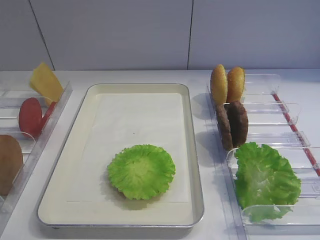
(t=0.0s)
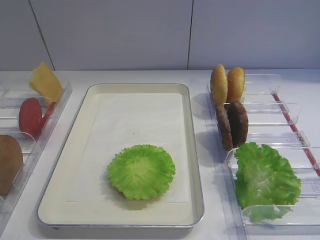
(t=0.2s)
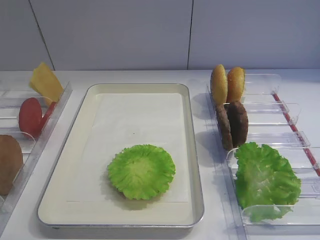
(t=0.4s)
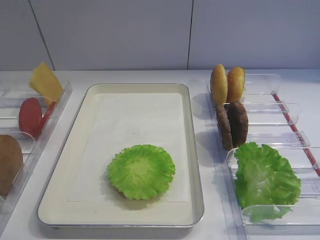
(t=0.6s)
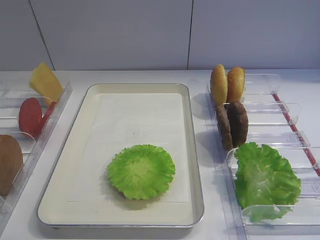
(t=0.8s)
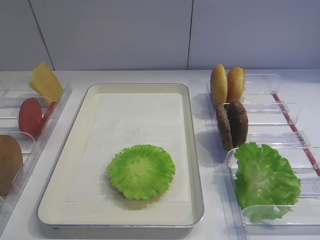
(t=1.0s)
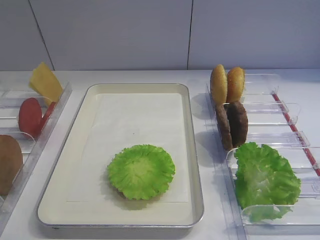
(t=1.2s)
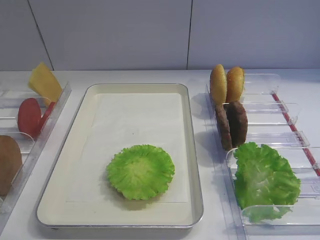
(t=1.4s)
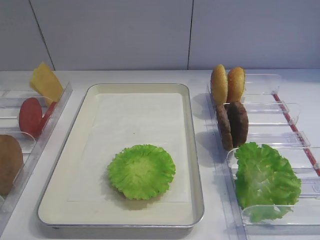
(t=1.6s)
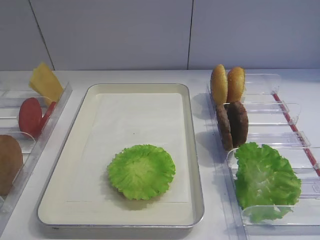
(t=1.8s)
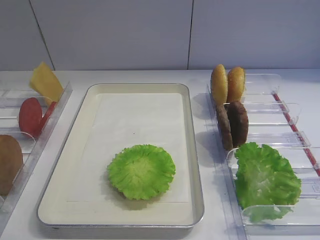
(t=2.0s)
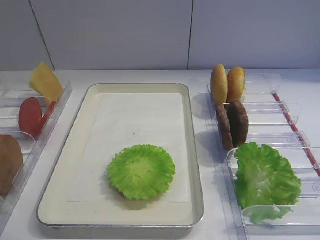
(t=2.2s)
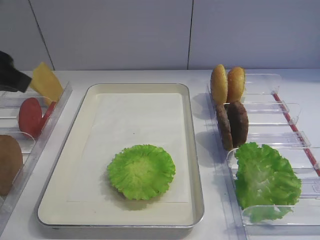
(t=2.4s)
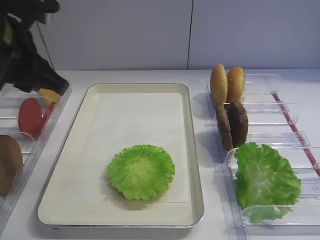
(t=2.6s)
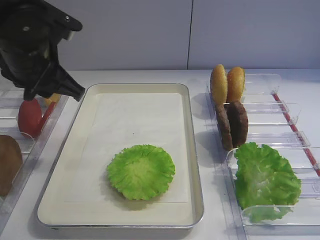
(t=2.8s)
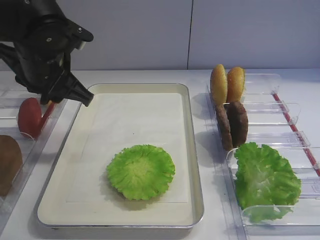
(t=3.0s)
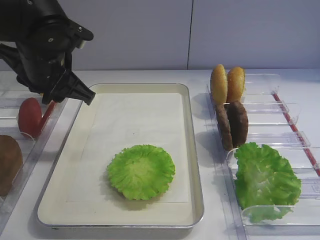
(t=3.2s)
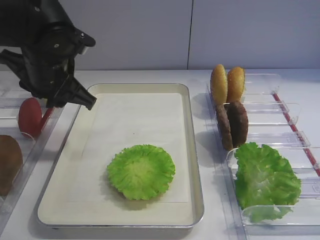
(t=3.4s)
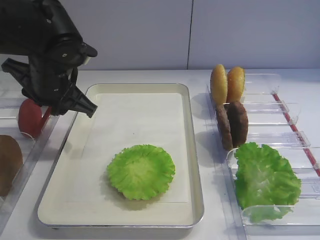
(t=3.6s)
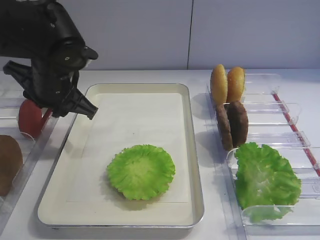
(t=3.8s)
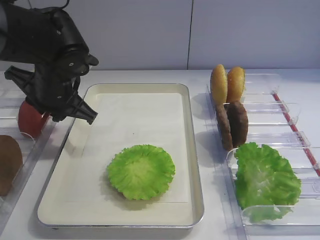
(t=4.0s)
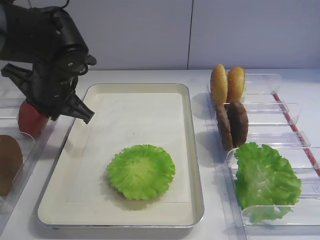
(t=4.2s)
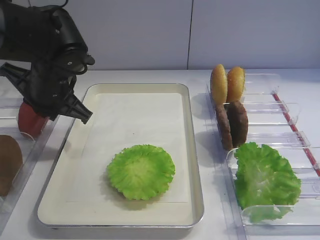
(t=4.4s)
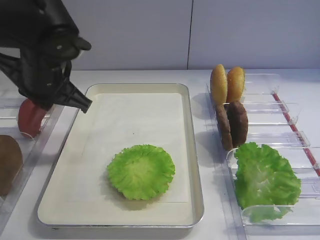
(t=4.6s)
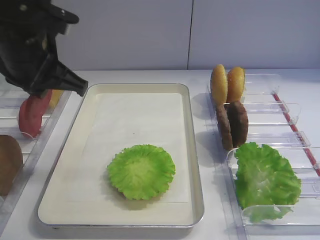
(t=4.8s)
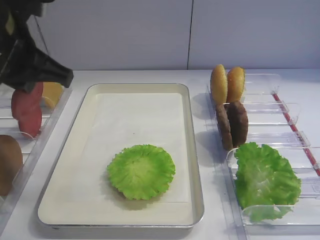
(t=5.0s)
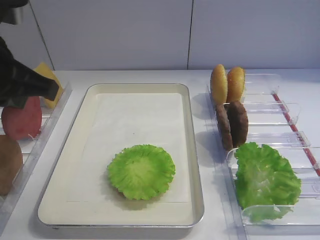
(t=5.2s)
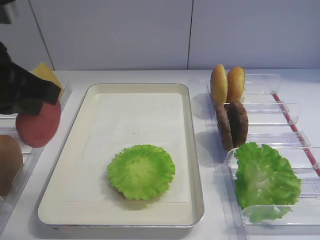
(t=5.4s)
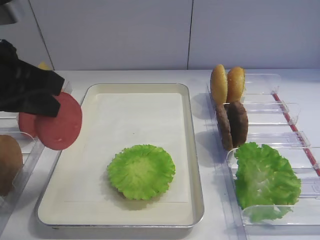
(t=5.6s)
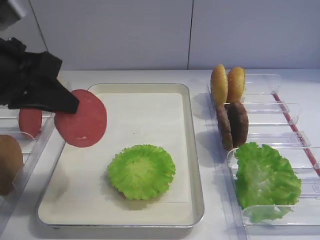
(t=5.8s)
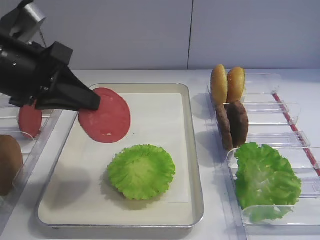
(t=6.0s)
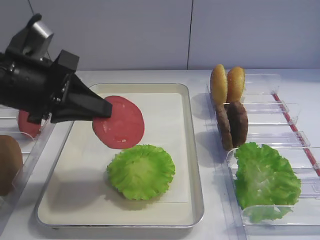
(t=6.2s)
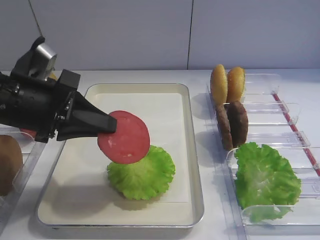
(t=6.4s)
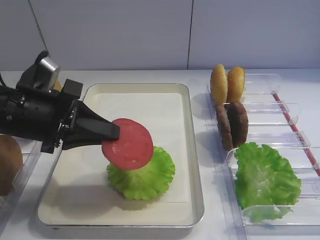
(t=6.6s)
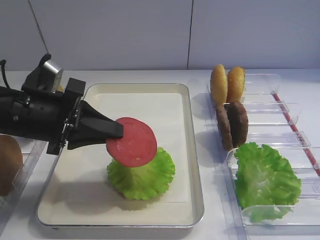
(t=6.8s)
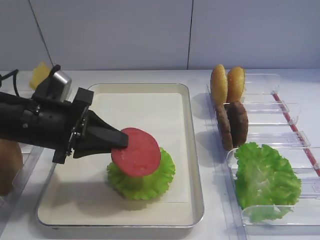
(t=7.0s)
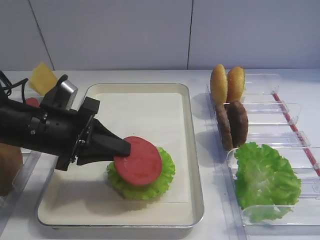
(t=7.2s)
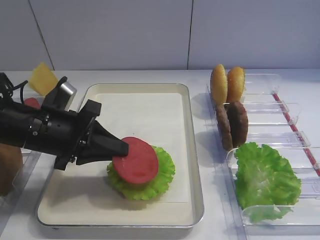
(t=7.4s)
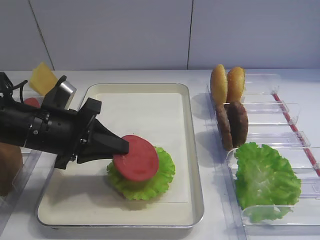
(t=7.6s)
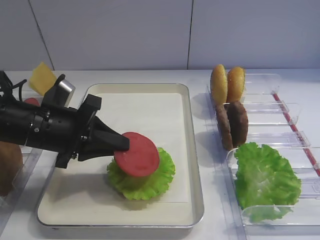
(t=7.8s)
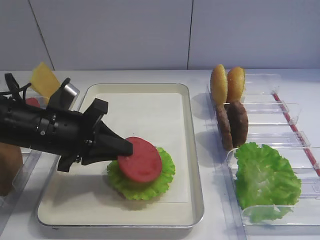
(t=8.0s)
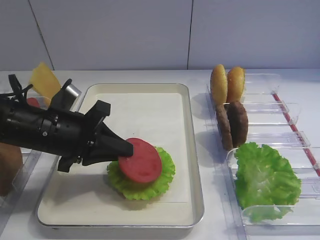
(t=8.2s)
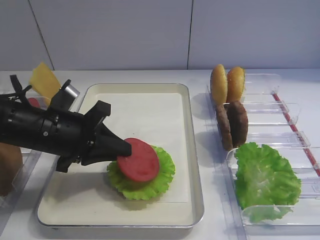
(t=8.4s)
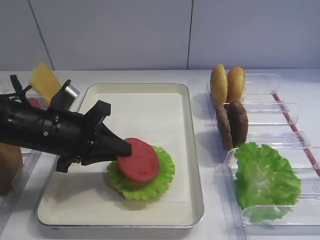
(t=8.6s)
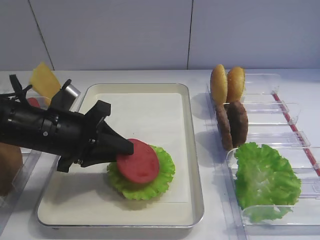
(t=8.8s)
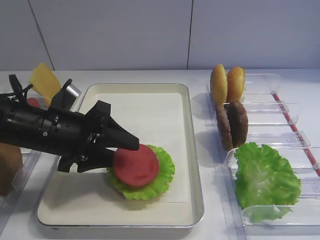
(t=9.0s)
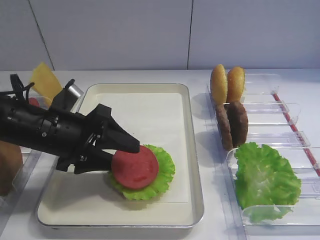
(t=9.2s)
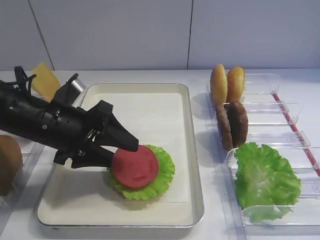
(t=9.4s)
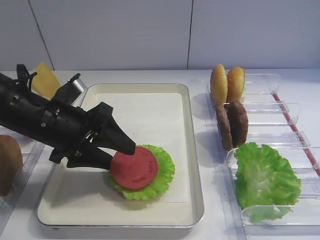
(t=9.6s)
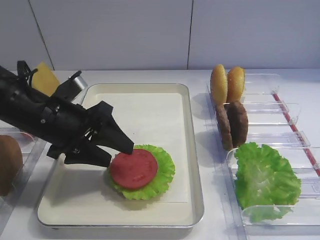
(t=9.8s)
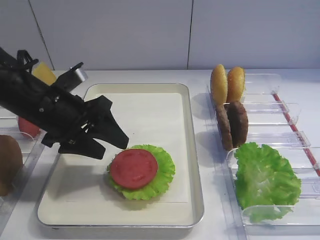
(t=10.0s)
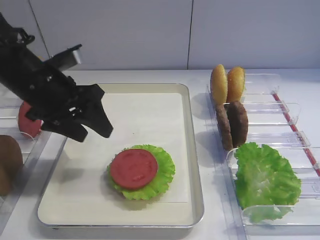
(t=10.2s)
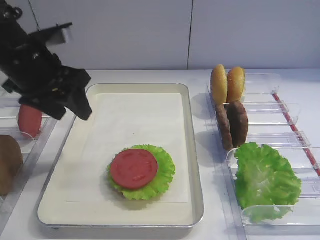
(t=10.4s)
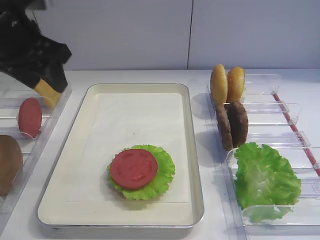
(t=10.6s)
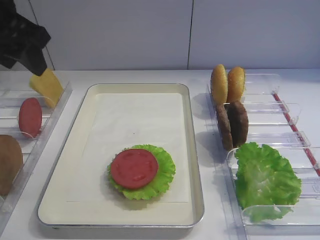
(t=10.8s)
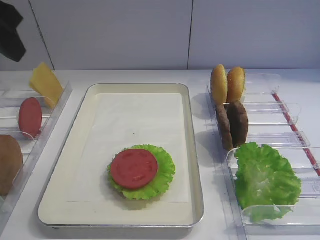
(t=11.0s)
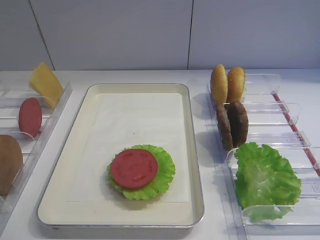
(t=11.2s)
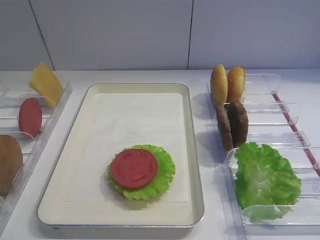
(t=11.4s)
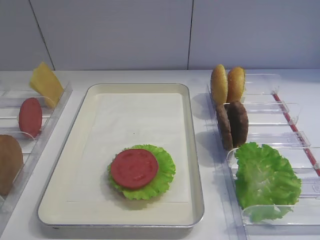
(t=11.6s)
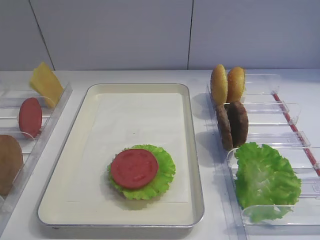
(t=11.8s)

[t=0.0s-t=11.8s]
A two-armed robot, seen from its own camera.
Step, t=0.0s to t=4.6s: Pick up the tomato slice with the left gripper.
Step, t=5.0s to t=10.0s: Place the tomato slice on the lettuce leaf with the left gripper.
t=1.4s to t=3.0s: The left gripper is displaced forward by approximately 35 cm.
t=3.0s to t=4.4s: The left gripper closes up.
t=4.4s to t=6.0s: The left gripper is displaced backward and upward by approximately 10 cm.
t=6.0s to t=7.4s: The left gripper shifts approximately 10 cm downward.
t=7.4s to t=8.8s: The grippers make only small movements.
t=8.8s to t=10.4s: The left gripper shifts some 10 cm upward and forward, and opens its fingers.
t=10.4s to t=11.8s: The left gripper shifts about 25 cm backward.

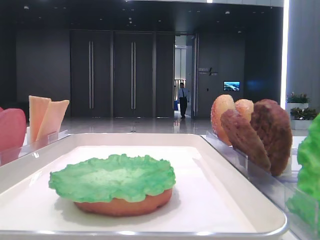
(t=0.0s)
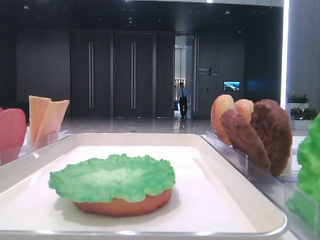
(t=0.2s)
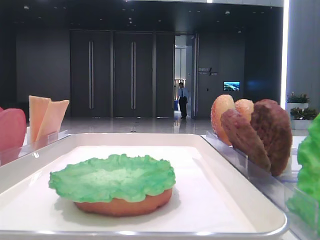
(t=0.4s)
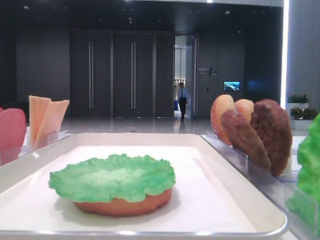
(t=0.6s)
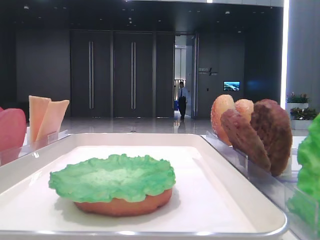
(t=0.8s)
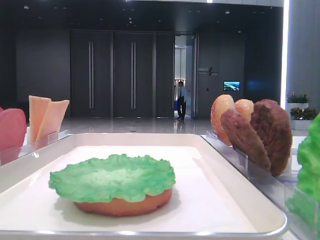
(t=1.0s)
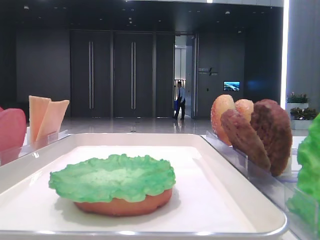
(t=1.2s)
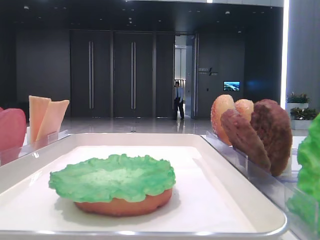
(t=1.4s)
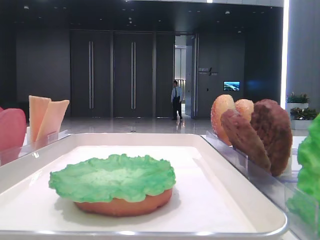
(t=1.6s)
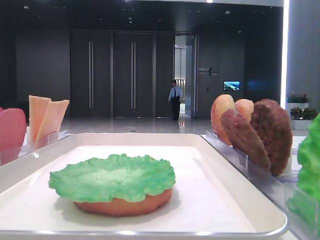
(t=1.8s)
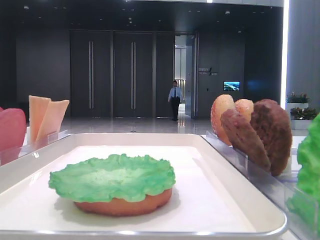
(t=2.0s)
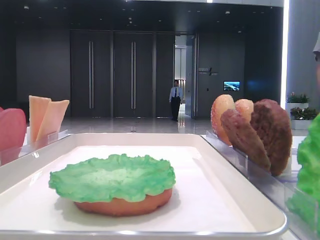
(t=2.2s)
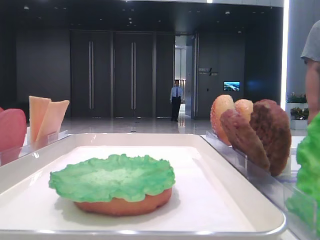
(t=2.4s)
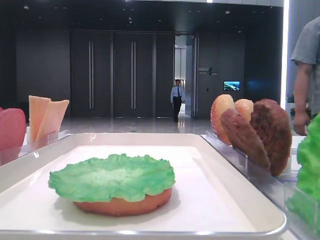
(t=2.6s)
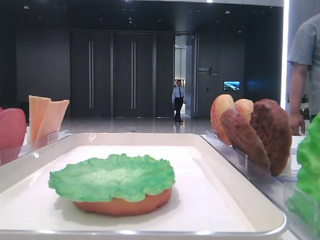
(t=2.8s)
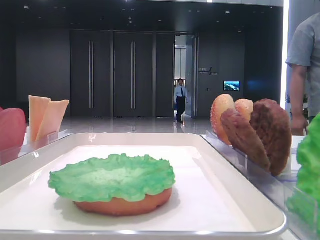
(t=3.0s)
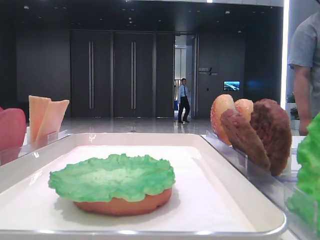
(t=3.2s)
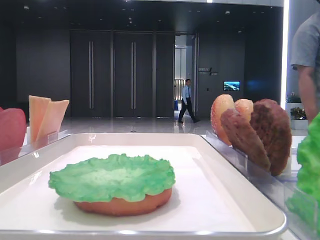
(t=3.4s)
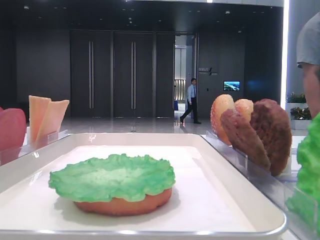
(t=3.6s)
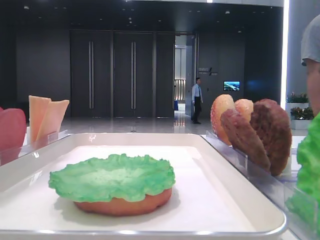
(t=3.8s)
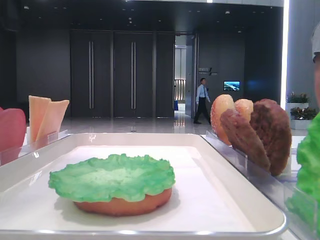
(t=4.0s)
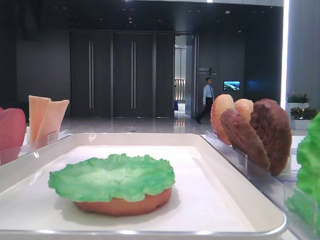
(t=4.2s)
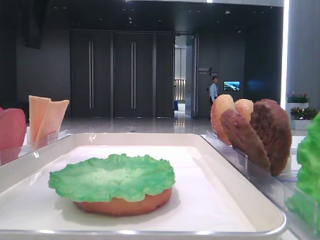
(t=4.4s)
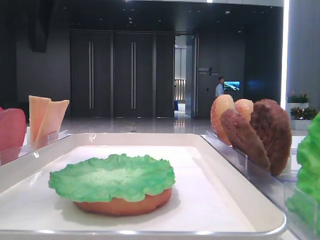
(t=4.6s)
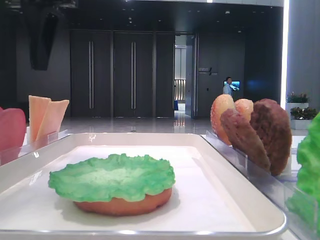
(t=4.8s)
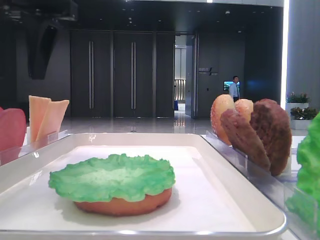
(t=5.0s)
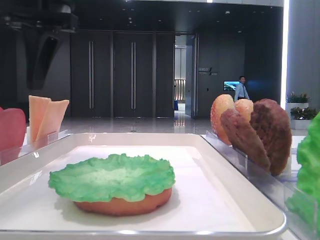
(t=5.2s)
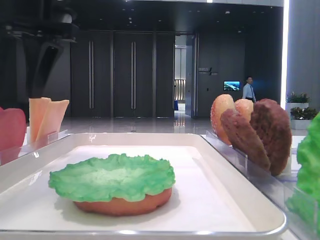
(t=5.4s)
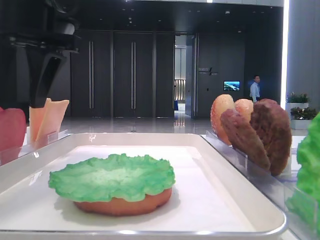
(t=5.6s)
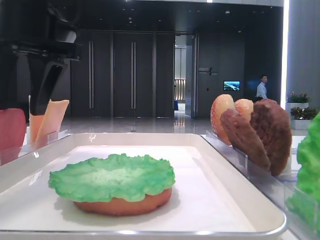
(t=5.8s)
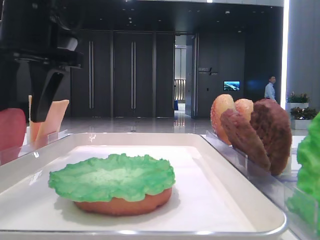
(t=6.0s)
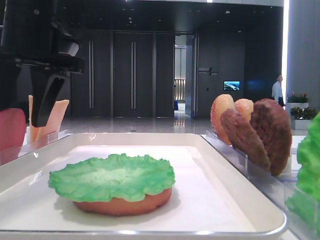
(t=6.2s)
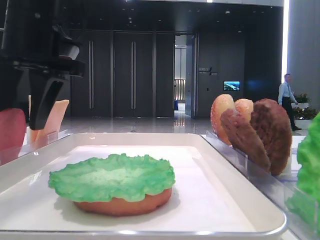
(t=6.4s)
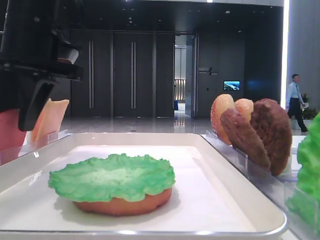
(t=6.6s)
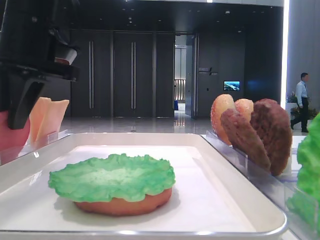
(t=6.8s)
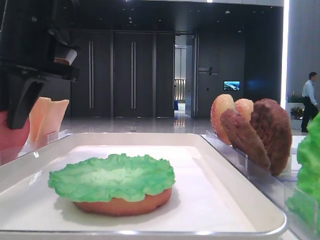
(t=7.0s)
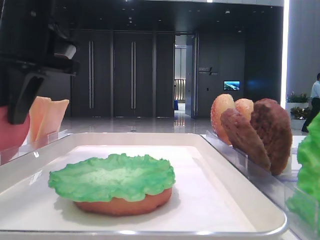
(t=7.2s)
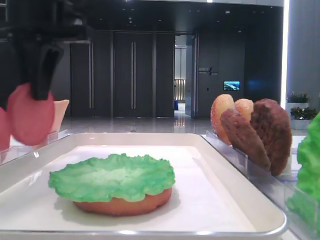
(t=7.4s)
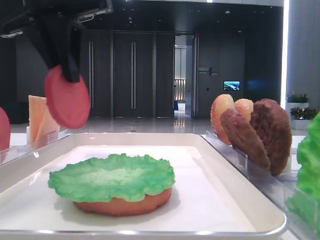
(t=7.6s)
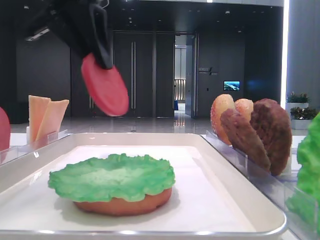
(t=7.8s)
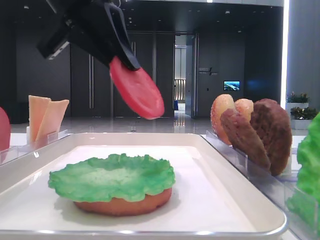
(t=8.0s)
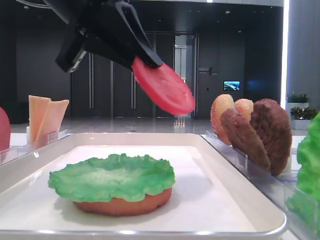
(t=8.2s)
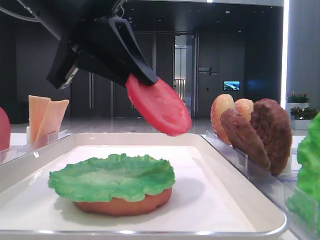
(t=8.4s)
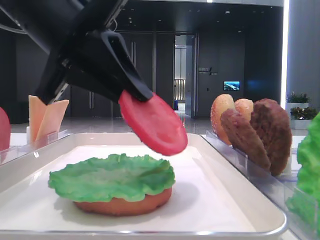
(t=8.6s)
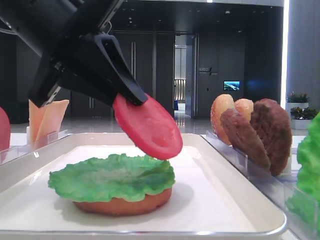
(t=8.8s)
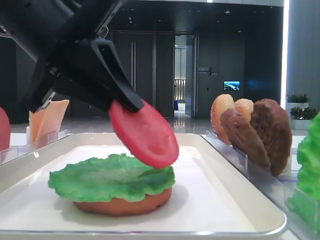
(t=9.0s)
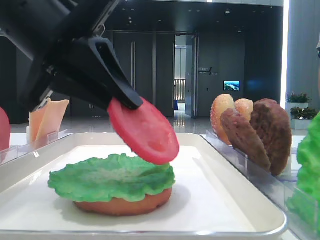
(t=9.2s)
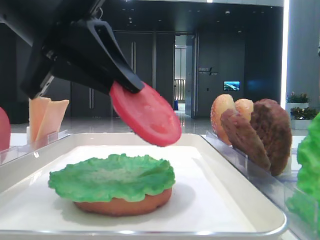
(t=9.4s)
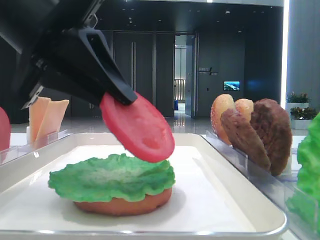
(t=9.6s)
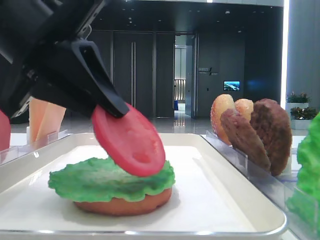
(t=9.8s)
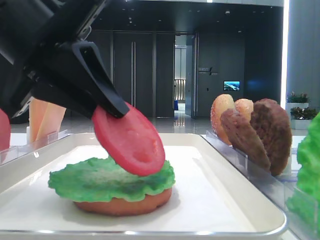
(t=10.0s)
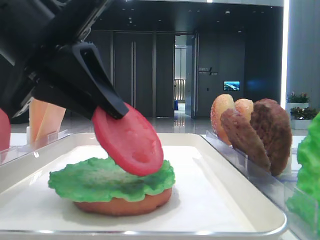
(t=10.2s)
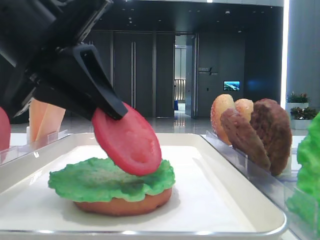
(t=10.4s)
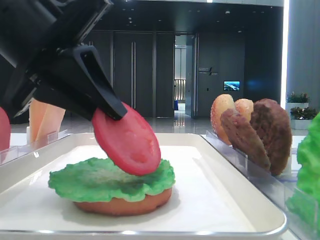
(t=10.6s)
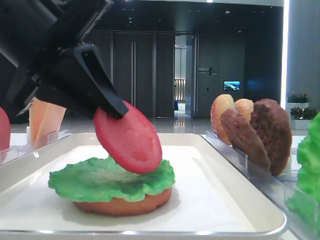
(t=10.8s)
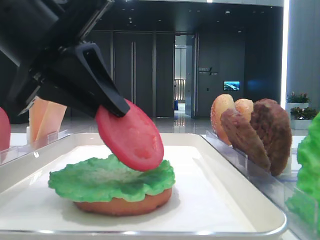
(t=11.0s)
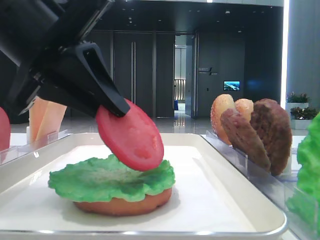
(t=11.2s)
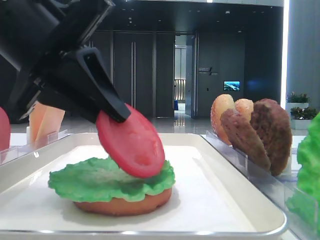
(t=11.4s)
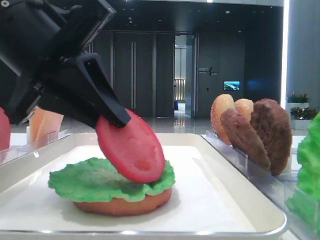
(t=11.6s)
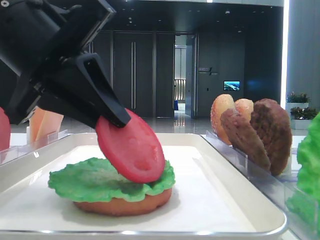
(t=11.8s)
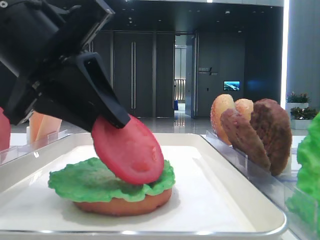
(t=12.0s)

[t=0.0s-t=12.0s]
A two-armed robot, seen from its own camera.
Step, t=0.0s to t=7.0s: Pick up the tomato slice with the left hand.
t=1.6s to t=3.0s: The left gripper is displaced forward by some 25 cm.
t=3.0s to t=4.4s: The left gripper goes some 15 cm to the right and downward.
t=4.4s to t=6.0s: The left gripper goes roughly 10 cm downward.
t=6.0s to t=7.6s: The left gripper closes.
t=7.6s to t=9.0s: The left gripper moves downward and backward, roughly 10 cm.
t=9.0s to t=10.4s: The grippers stay close to where they were, moving slightly.
t=10.4s to t=12.0s: Both grippers stay put.
